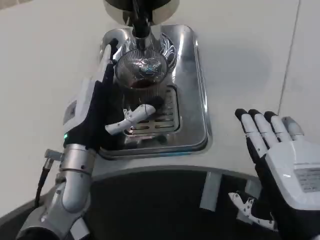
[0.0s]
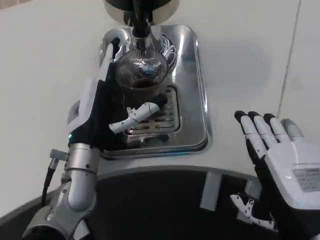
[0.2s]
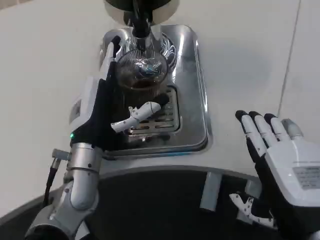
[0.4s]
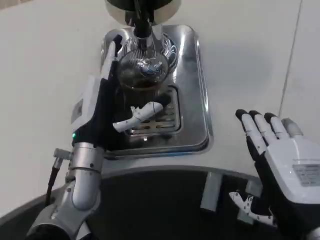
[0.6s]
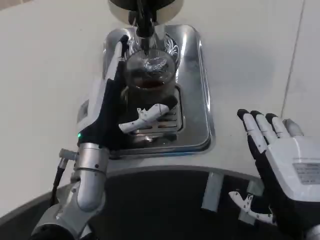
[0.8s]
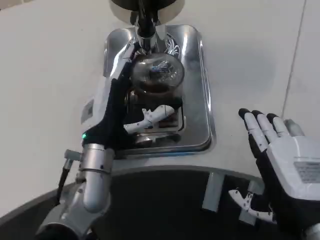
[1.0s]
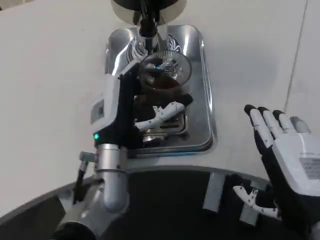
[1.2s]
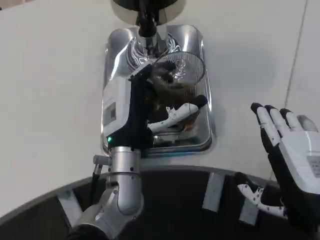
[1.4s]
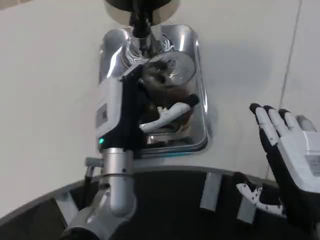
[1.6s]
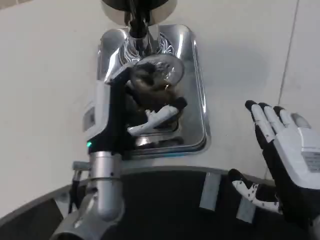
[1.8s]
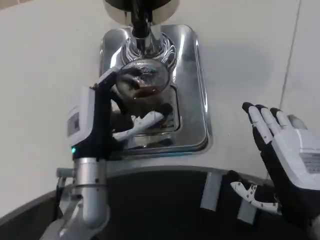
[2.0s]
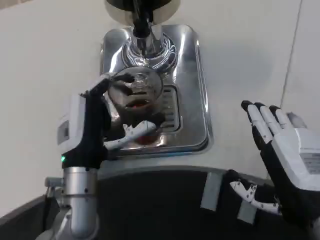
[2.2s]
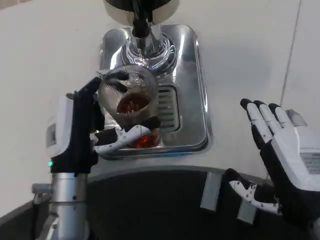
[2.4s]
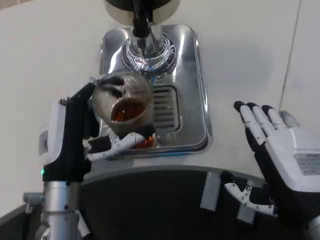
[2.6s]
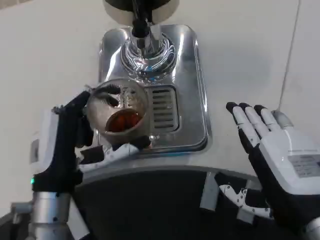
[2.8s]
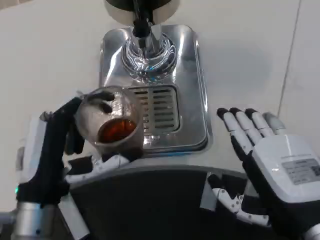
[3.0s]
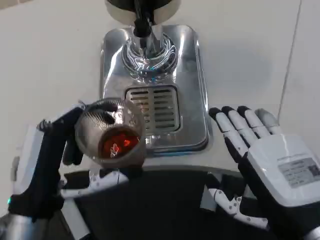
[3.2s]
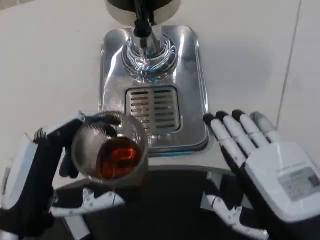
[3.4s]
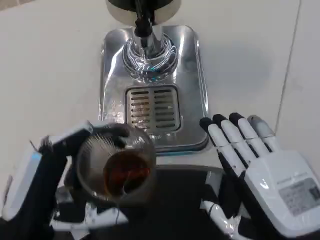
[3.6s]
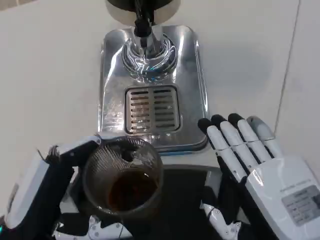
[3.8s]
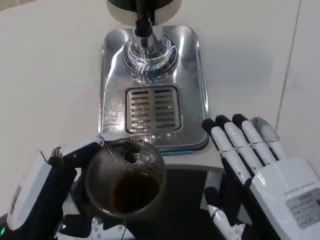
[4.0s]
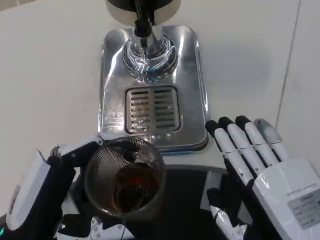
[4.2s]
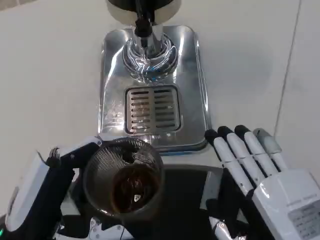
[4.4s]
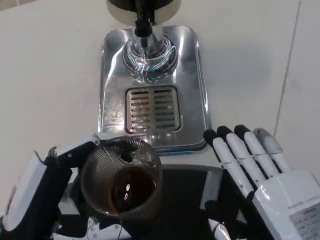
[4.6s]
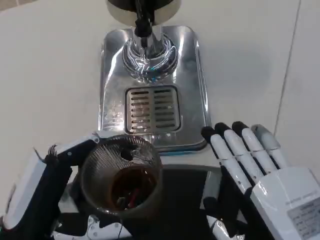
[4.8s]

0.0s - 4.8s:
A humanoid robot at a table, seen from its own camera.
Task of the whole recording: Grasp the cup under the faucet to collect the drink, then remove the cup.
0.0s - 1.6s: The left hand goes about 5 cm to the right.
1.6s - 3.2s: The left hand shifts some 15 cm backward and to the left.

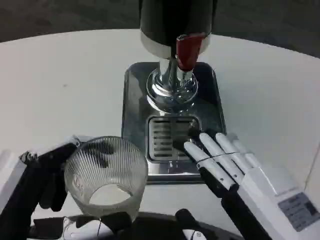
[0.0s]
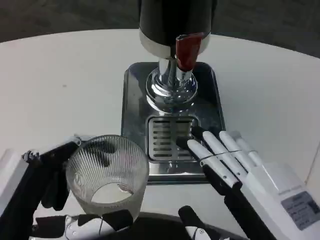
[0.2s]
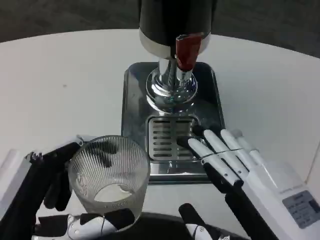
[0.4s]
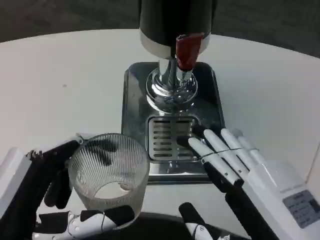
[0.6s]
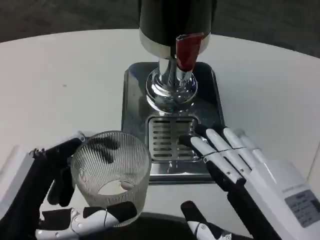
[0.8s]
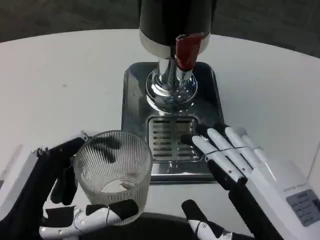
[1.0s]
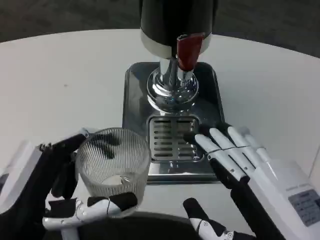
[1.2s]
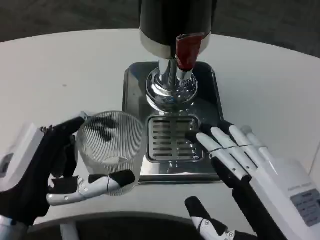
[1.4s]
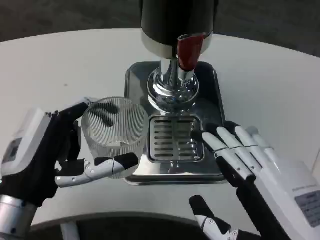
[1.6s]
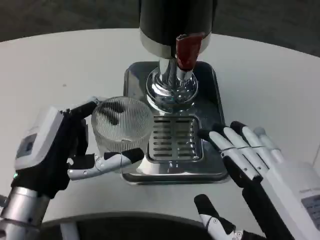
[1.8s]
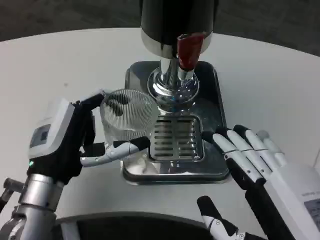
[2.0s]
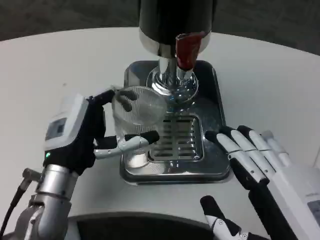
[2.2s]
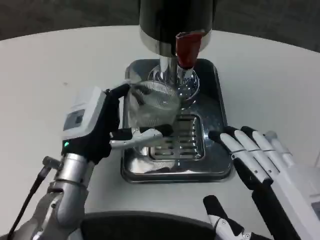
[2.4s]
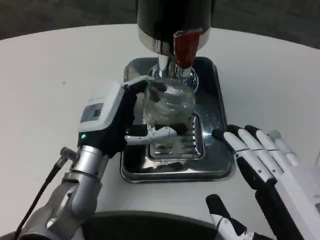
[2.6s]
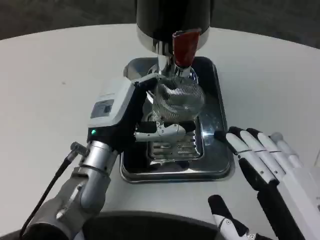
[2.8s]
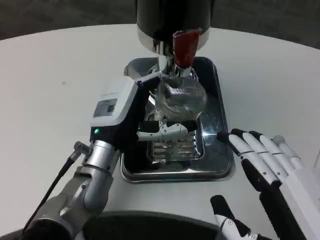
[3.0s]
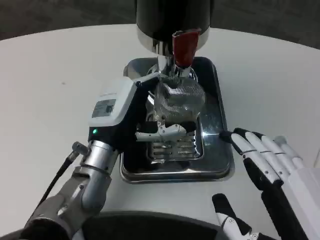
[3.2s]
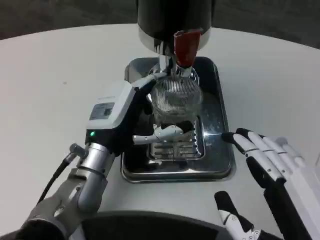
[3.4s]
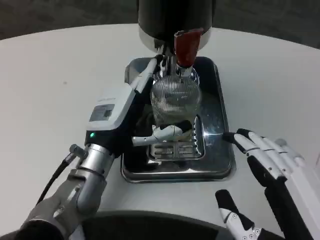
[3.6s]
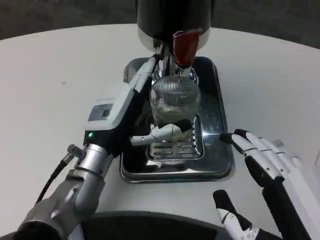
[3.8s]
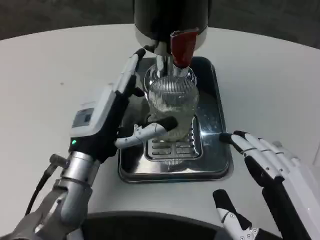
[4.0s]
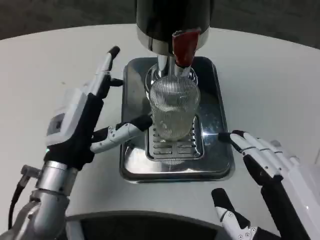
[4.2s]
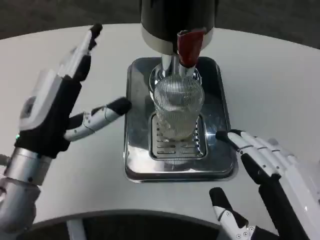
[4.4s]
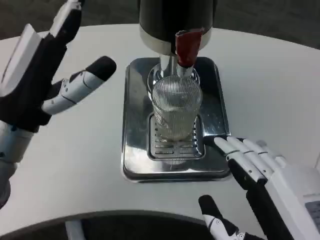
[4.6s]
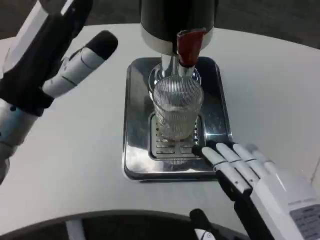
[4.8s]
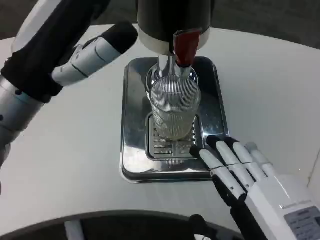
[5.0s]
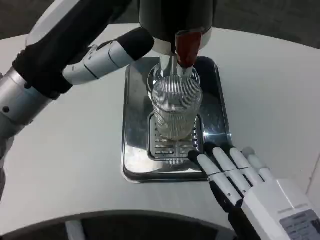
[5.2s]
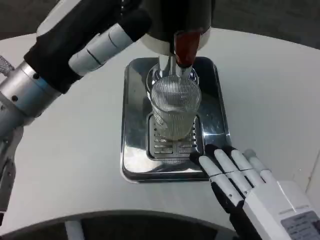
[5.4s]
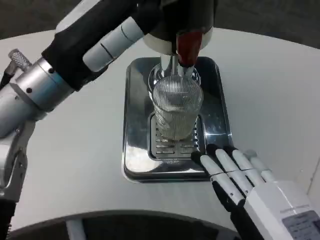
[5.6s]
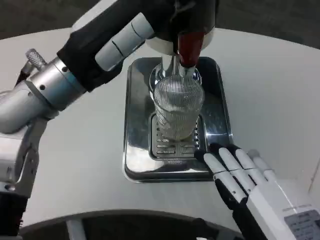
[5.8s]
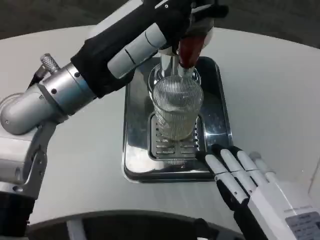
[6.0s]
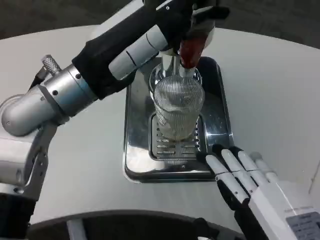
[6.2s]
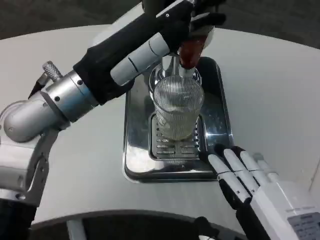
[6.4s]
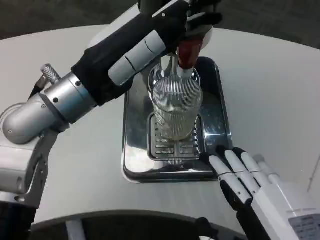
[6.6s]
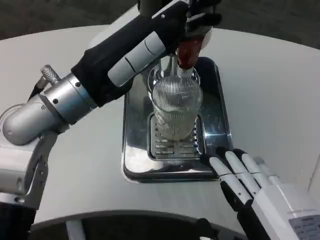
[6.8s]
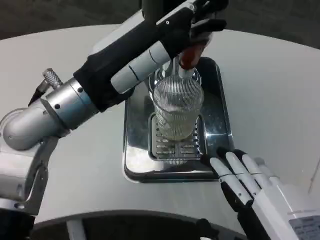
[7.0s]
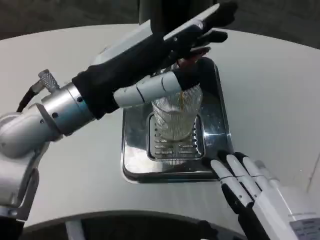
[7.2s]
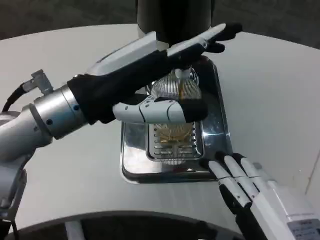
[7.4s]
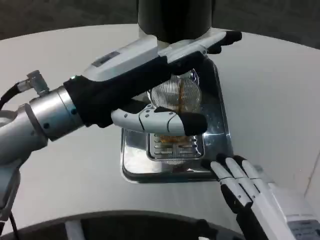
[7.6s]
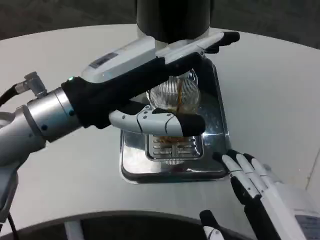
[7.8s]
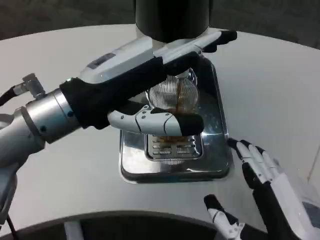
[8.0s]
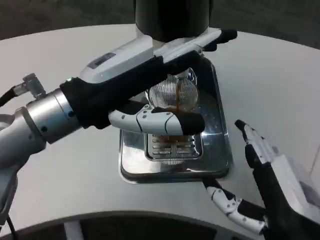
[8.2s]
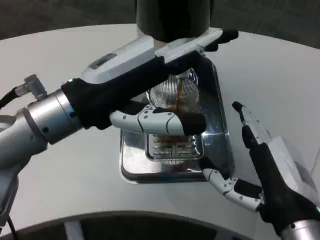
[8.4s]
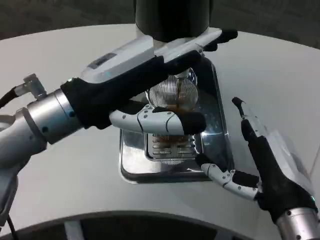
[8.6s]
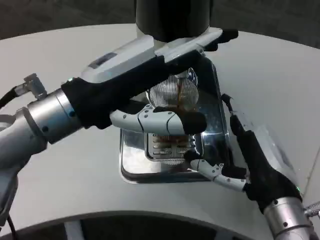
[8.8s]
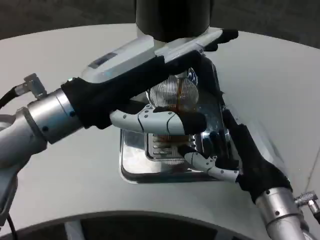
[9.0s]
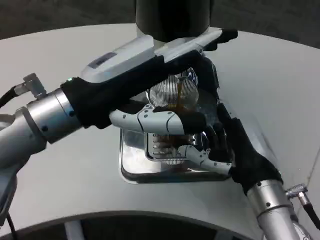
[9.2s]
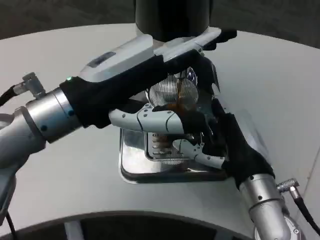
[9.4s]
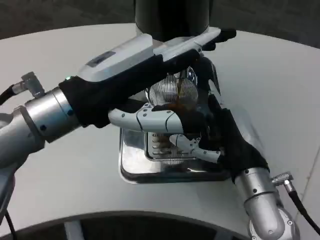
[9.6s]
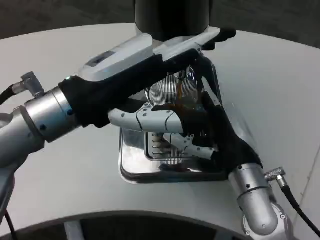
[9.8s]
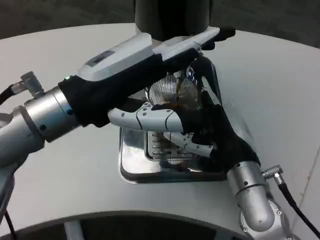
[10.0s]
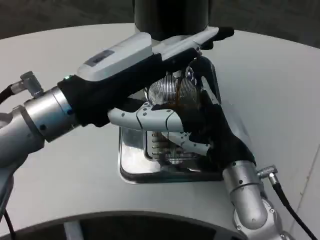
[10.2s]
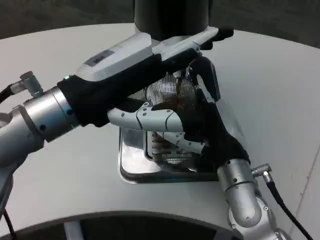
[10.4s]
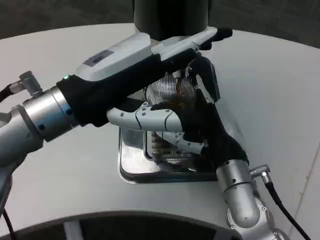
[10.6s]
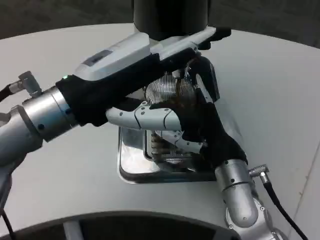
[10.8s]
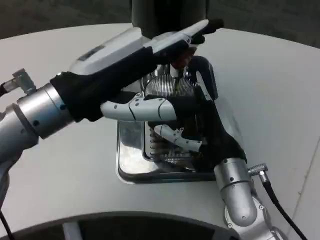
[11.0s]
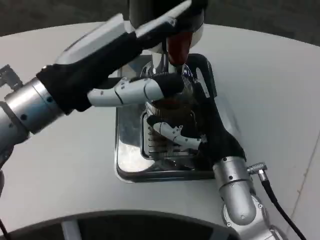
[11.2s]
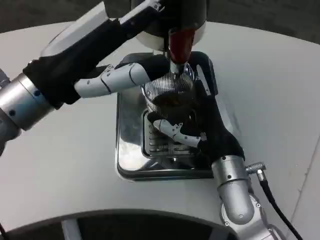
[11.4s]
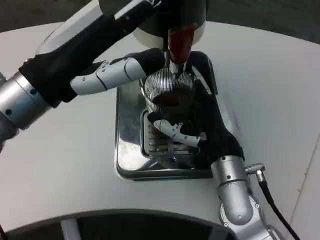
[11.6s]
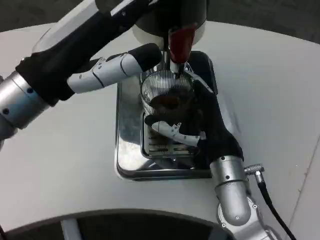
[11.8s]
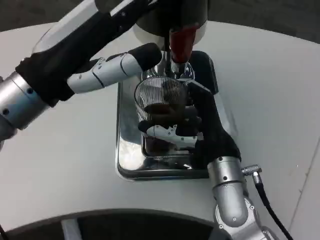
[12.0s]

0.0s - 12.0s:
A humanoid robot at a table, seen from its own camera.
Task of the whole recording: Grasp the cup under the faucet to collect the drink, then remove the cup.
0.0s - 1.6s: The left hand is displaced forward by some 10 cm.
1.6s - 3.0s: The left hand shifts some 15 cm forward and to the right.
3.0s - 4.4s: The left hand goes approximately 10 cm to the left and backward.
4.4s - 6.0s: The left hand moves upward, about 10 cm.
7.6s - 9.0s: The right hand is displaced forward by about 15 cm.
9.0s - 10.4s: The right hand shifts about 5 cm forward.

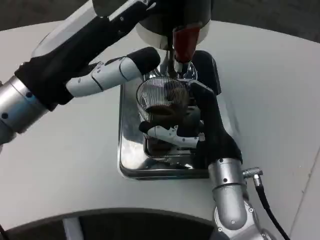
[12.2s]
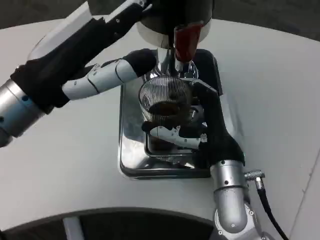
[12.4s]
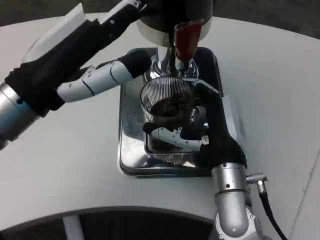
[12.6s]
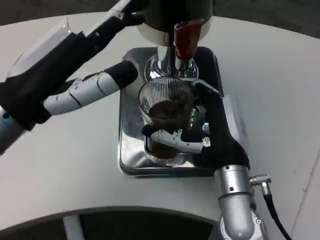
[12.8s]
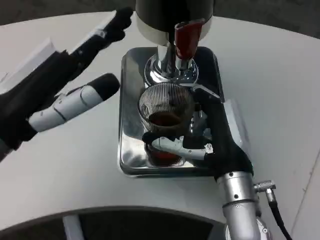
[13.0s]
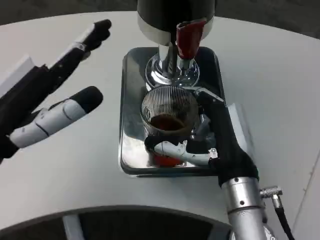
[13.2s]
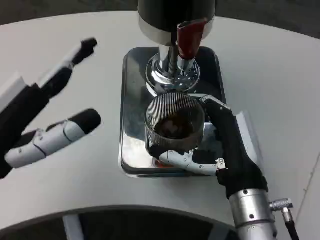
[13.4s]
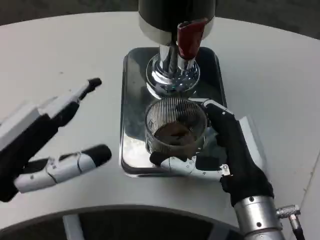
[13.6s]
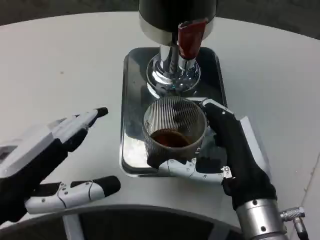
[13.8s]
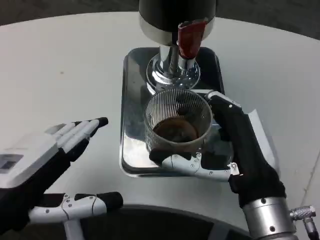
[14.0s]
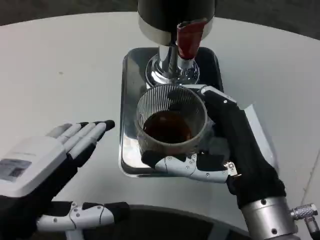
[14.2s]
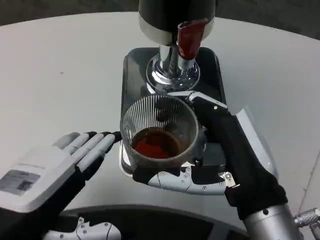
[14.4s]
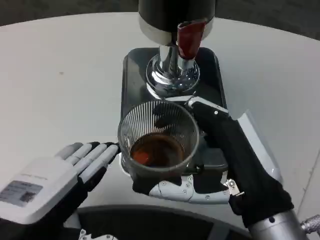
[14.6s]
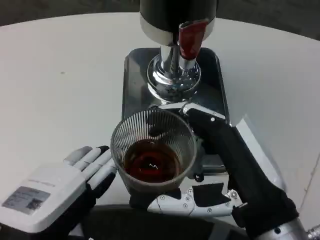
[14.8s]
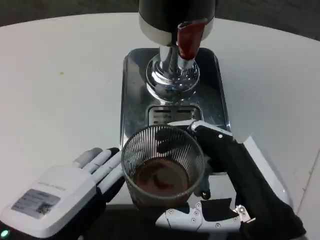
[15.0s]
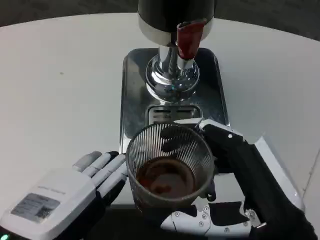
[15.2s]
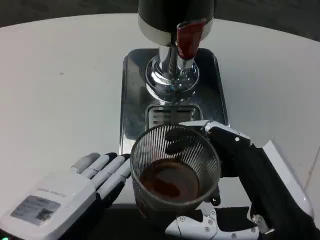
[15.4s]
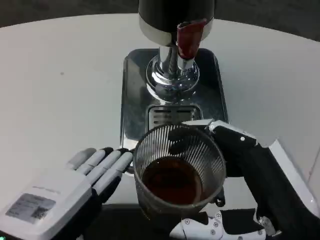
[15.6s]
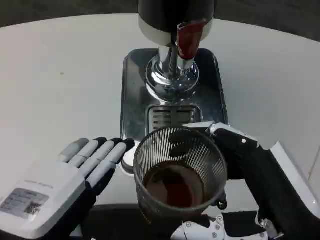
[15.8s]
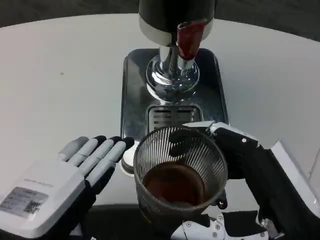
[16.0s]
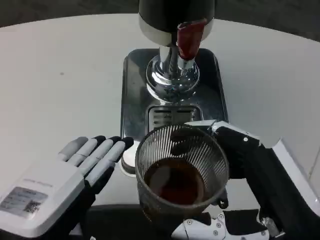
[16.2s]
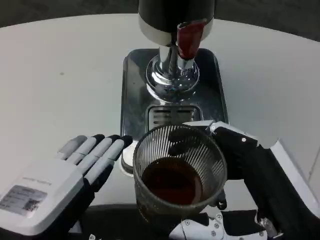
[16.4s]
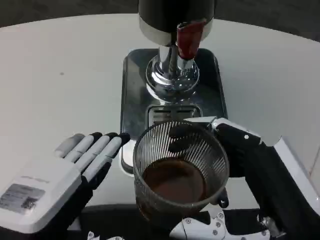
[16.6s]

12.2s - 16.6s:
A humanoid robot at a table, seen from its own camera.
Task of the whole recording: Grasp the cup under the faucet to collect the drink, then remove the cup.
12.2s - 13.6s: The right hand is displaced backward by roughly 5 cm; the left hand is displaced backward and downward by about 10 cm.
13.6s - 15.2s: The right hand travels backward by some 10 cm. Meanwhile the left hand moves roughly 10 cm.

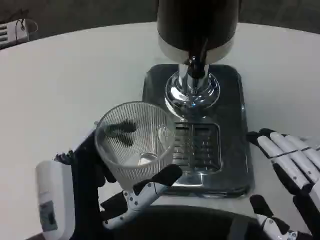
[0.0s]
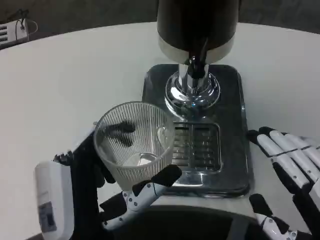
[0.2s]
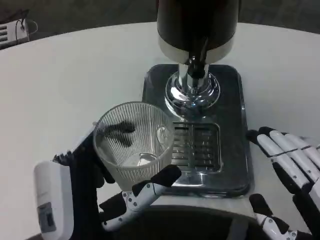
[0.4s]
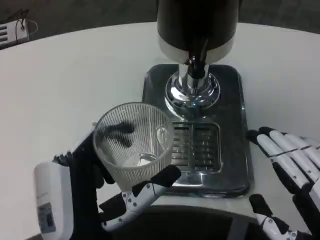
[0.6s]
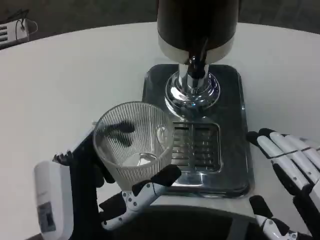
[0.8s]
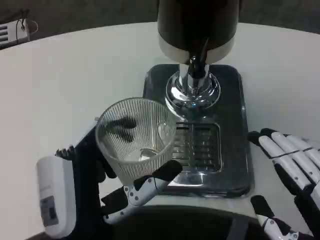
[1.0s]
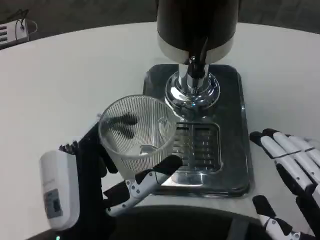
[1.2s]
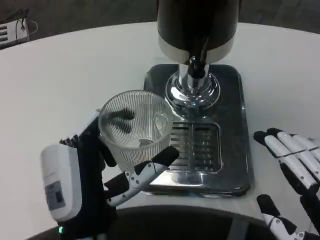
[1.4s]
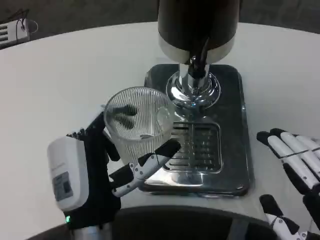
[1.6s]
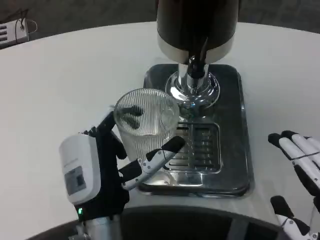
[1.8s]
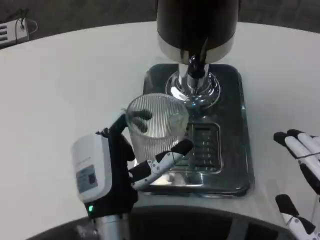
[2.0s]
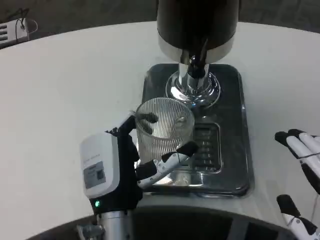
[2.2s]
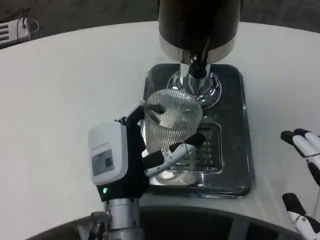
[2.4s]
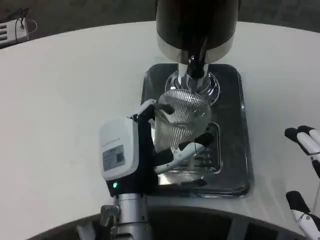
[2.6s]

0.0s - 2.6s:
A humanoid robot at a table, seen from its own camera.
Task of the whole recording: Grasp the cup under the faucet to collect the drink, then remove the cup.
0.0s - 1.2s: There are only small adjustments of the hands.
1.2s - 2.6s: The left hand travels forward by roughly 10 cm.
